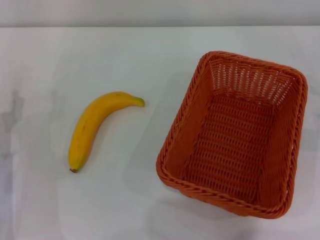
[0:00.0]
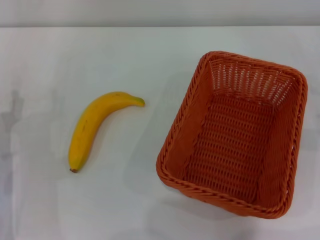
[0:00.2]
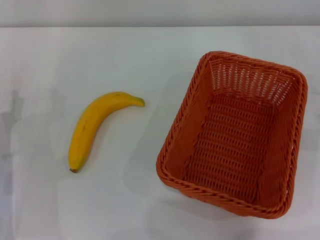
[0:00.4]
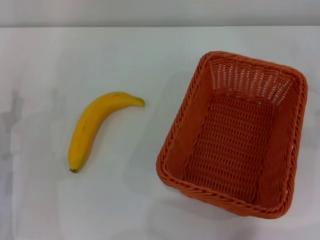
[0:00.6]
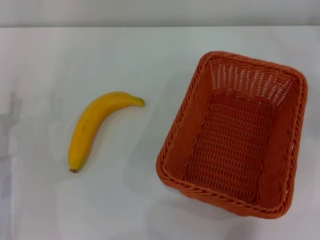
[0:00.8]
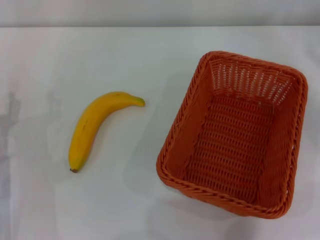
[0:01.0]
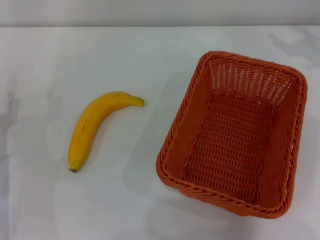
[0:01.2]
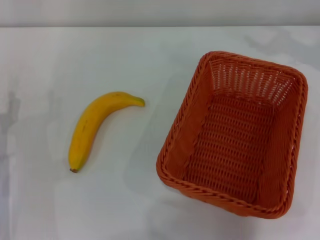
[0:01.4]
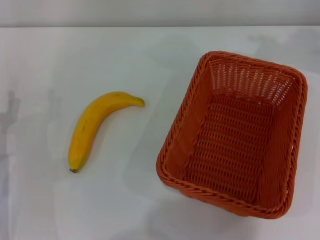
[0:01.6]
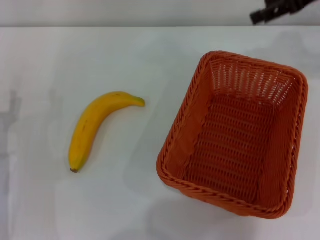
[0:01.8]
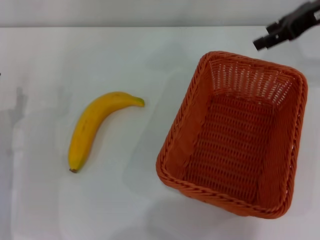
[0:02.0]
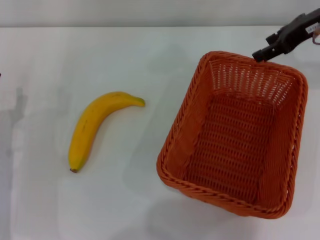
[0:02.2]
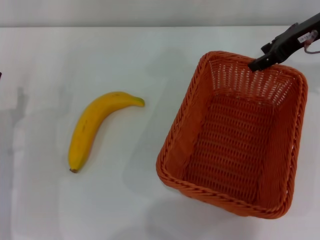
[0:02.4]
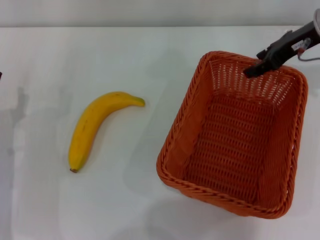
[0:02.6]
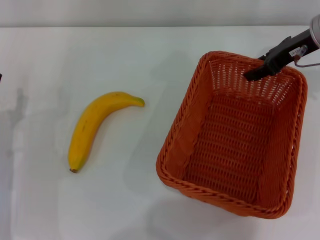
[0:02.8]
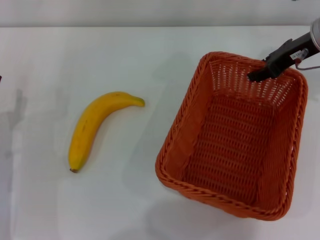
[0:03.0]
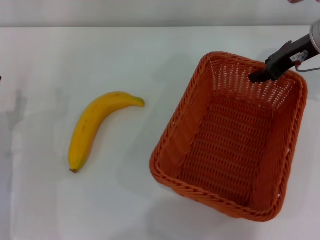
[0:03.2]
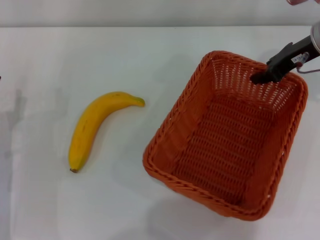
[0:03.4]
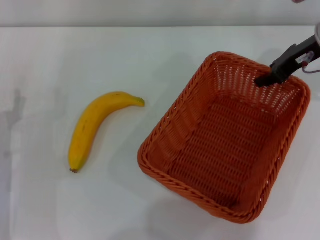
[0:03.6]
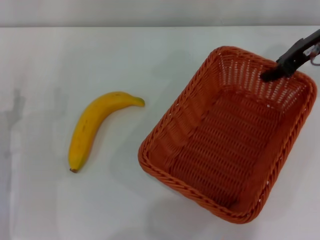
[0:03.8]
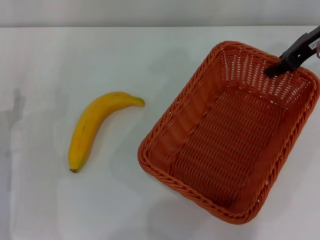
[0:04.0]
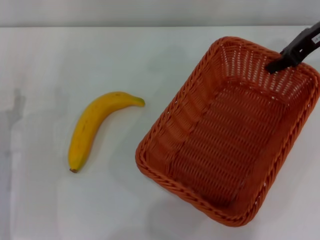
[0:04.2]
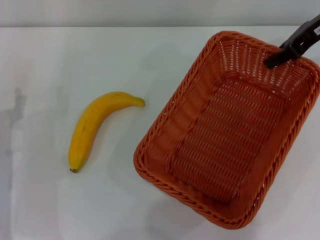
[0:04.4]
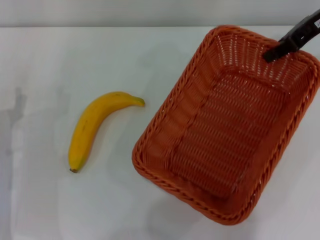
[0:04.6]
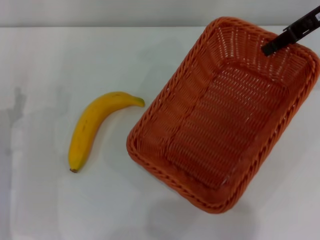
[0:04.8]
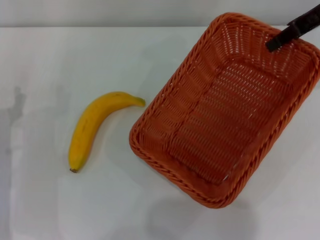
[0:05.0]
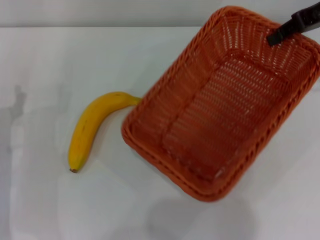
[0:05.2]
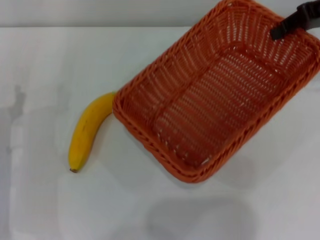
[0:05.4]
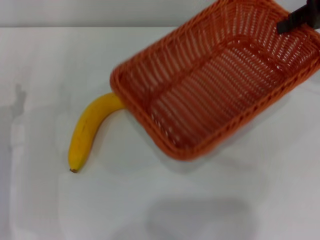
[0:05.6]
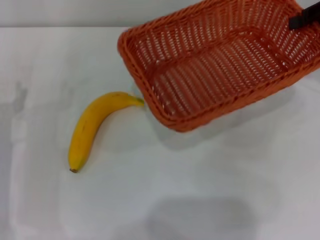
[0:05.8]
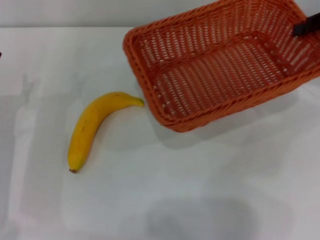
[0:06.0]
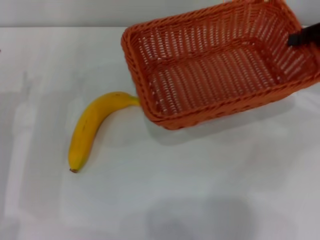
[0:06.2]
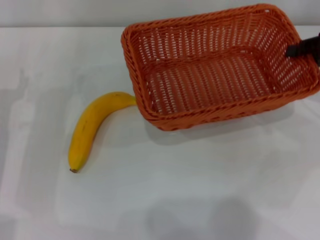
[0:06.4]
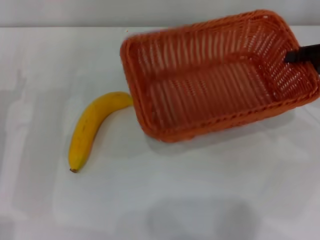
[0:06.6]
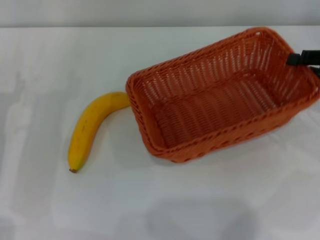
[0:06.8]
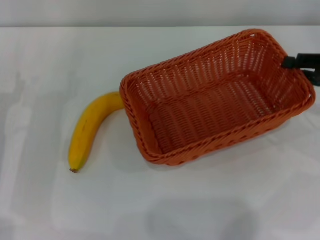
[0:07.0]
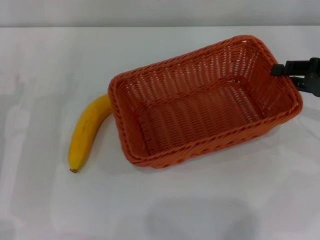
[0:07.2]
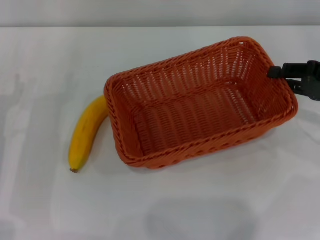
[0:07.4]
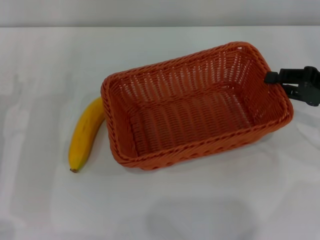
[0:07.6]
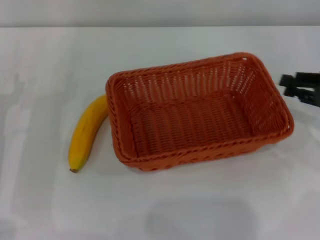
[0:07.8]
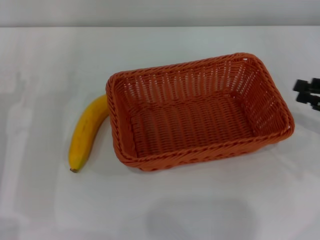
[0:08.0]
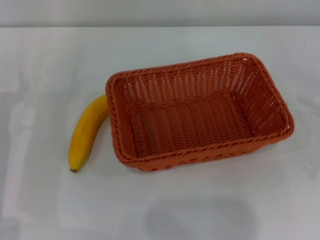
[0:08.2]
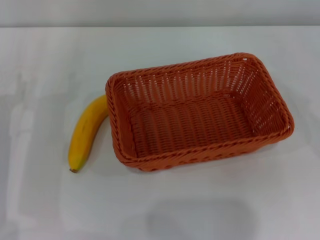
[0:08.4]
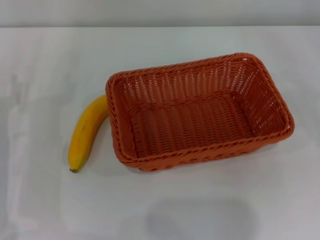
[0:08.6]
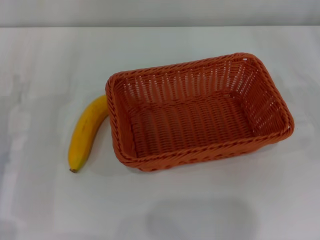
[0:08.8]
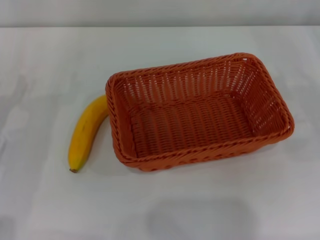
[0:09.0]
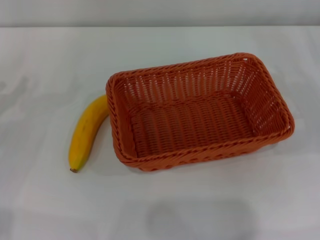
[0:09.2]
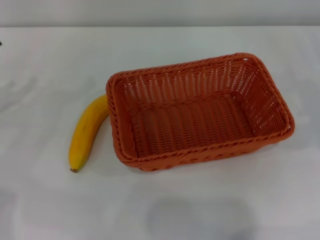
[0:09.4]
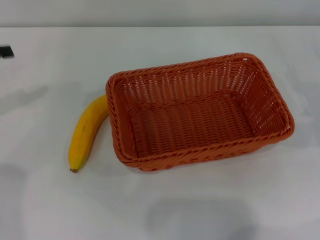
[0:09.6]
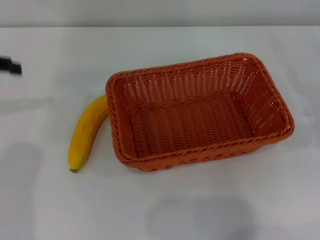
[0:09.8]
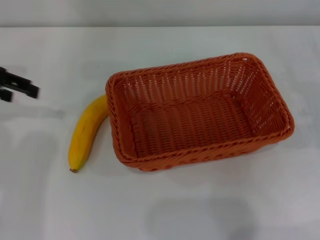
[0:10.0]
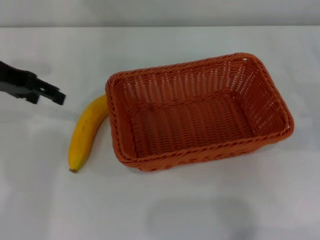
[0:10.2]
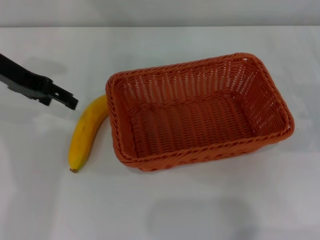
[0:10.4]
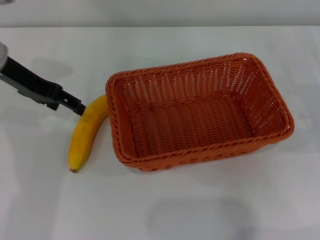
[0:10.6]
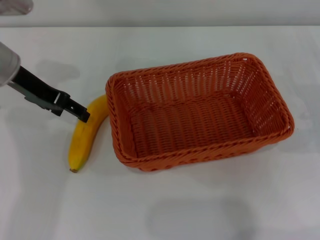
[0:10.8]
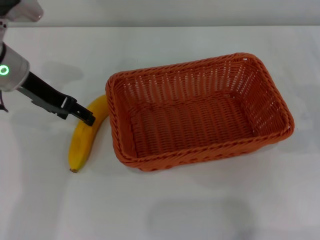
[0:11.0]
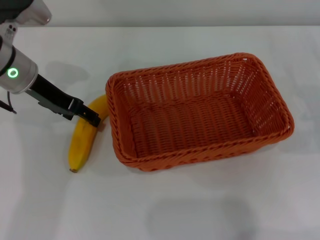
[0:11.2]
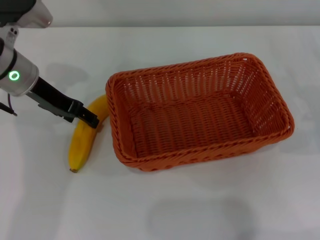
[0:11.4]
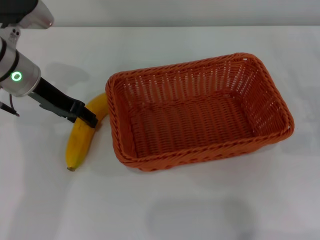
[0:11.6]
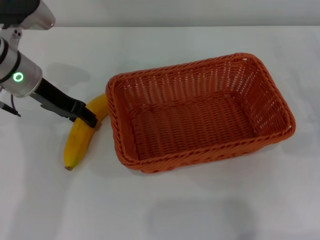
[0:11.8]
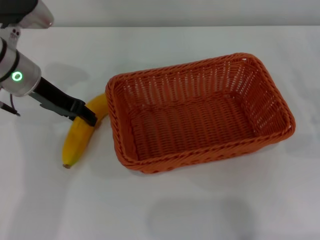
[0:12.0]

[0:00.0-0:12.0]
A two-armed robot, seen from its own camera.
Step, 0:00.0 to 0:04.0: Pick up the light basket with the right gripper.
Step, 0:04.2 to 0:07.8: Place the light basket in the center of view with the right gripper.
0:01.6 to 0:03.0: The right gripper heads downward and to the left, covering some 10 cm.
0:03.0 to 0:04.4: The right gripper heads upward, covering approximately 5 cm, and closes up.
0:04.4 to 0:06.0: The right gripper travels to the right by roughly 10 cm.
0:06.0 to 0:07.6: The right gripper travels downward and backward by roughly 10 cm.
0:07.6 to 0:09.0: The right gripper is displaced to the right by some 5 cm.
0:09.0 to 0:10.4: The left gripper heads upward and forward, covering approximately 20 cm.
0:10.4 to 0:12.0: The left gripper travels downward by some 5 cm, and closes up.

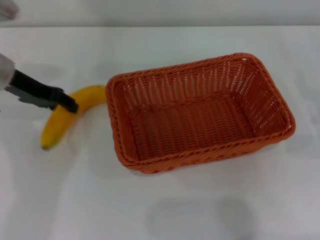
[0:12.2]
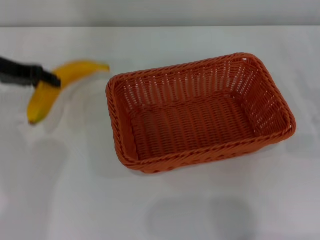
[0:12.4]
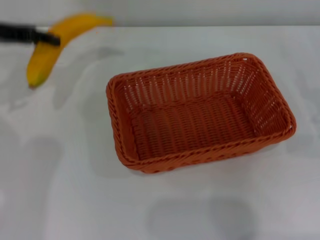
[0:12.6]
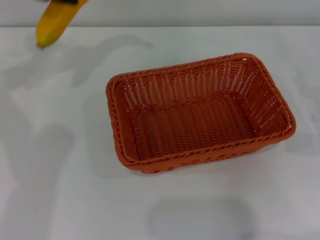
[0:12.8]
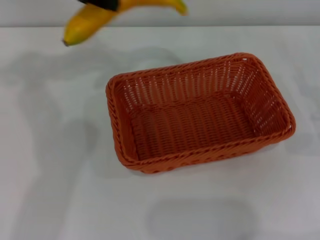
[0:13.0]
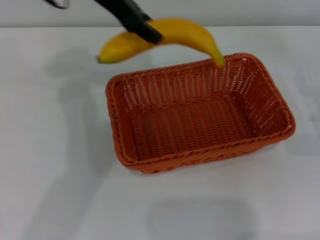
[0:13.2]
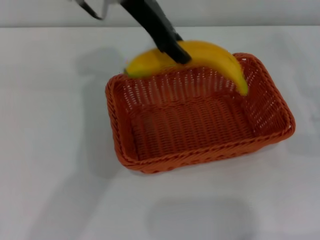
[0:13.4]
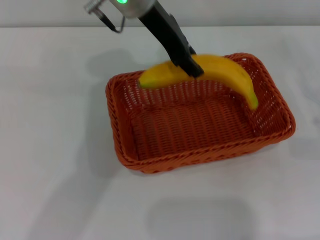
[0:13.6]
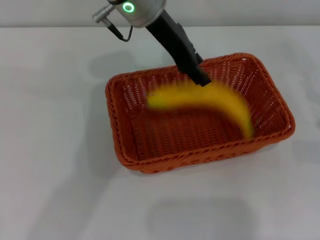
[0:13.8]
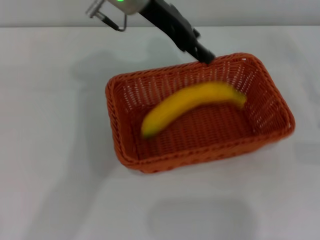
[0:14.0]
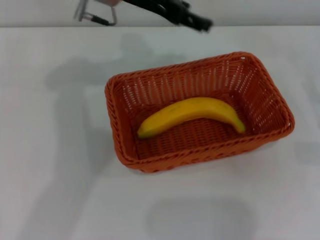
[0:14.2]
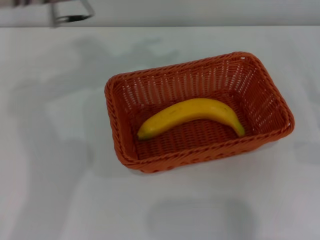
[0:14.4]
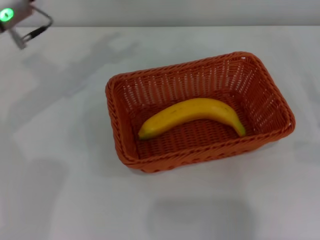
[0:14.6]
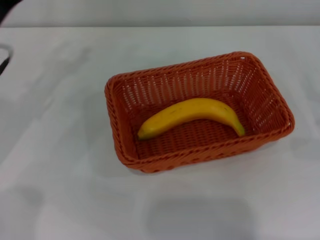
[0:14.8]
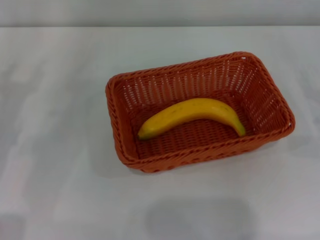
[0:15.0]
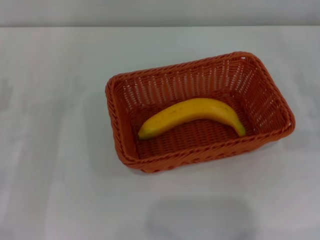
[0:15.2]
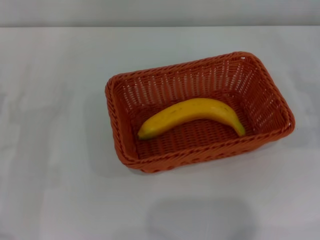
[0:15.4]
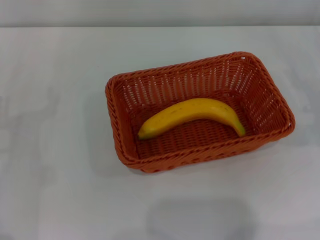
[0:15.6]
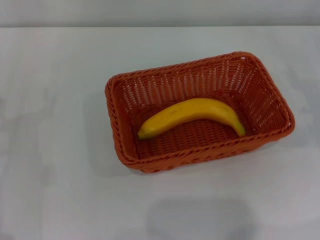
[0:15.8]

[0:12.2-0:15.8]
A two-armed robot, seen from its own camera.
Step, 0:12.6 to 0:14.0: Place the banana into the light basket with the left gripper.
0:12.2 to 0:14.0: The left gripper is displaced to the right and upward by some 20 cm.
0:14.0 to 0:15.8: The left gripper travels to the left, downward and backward by approximately 35 cm, and opens its fingers.
